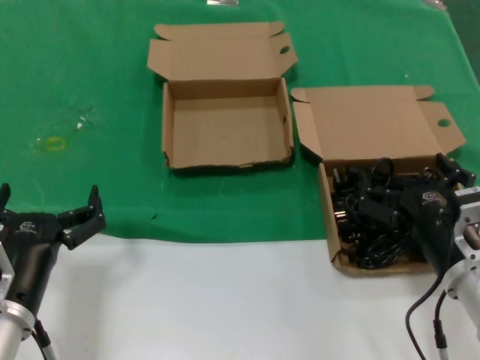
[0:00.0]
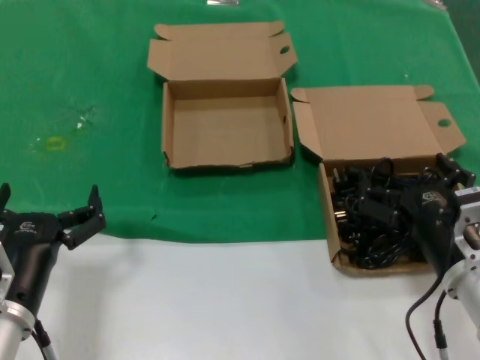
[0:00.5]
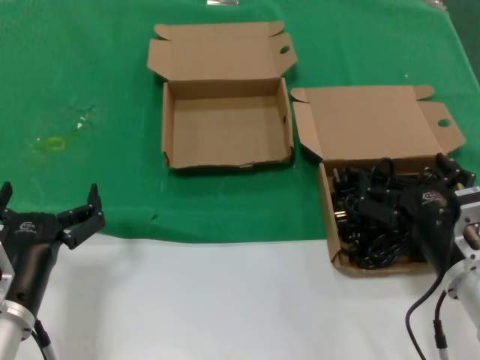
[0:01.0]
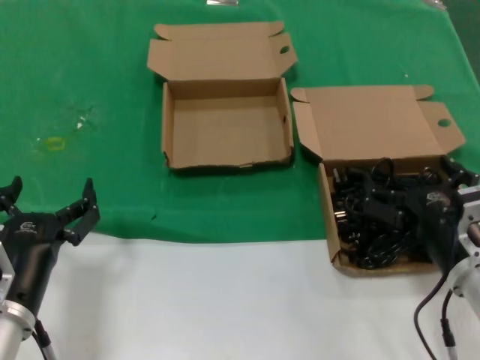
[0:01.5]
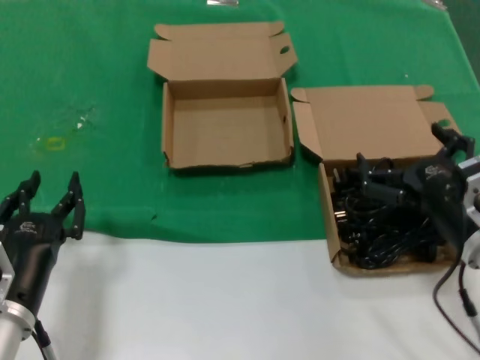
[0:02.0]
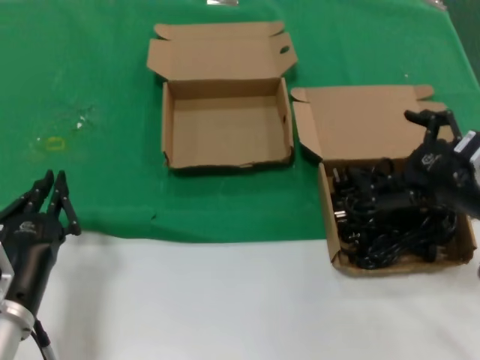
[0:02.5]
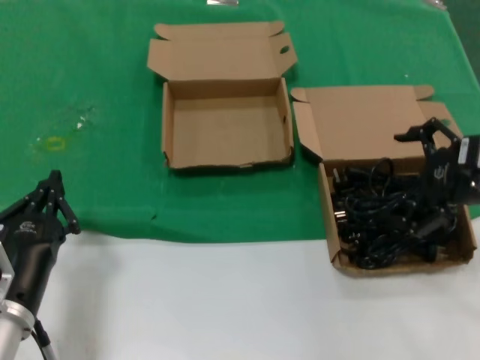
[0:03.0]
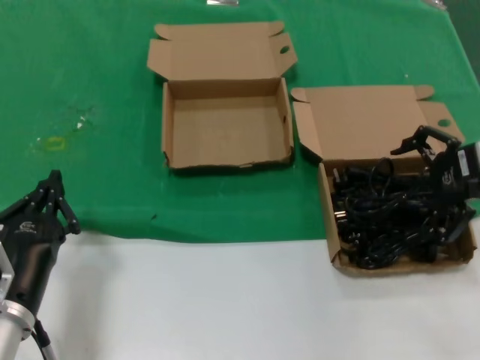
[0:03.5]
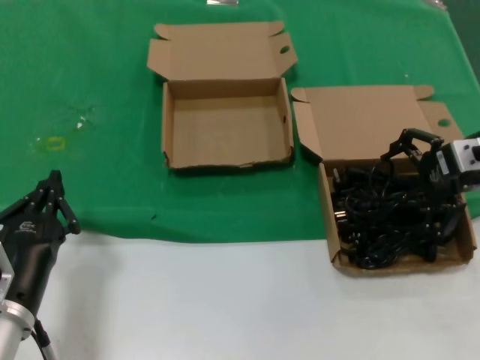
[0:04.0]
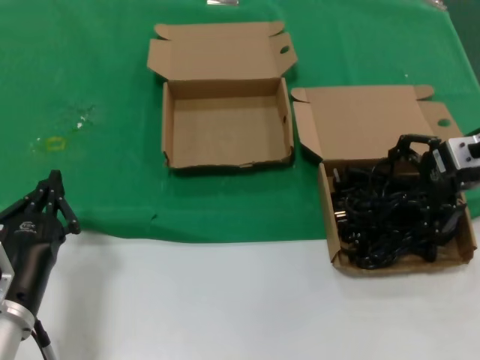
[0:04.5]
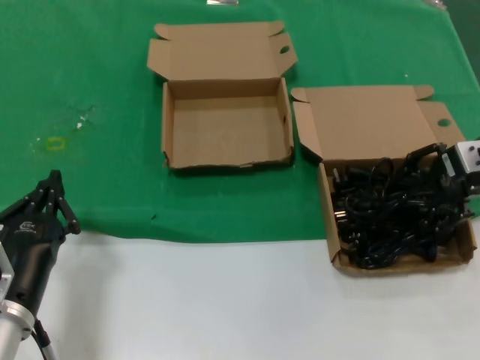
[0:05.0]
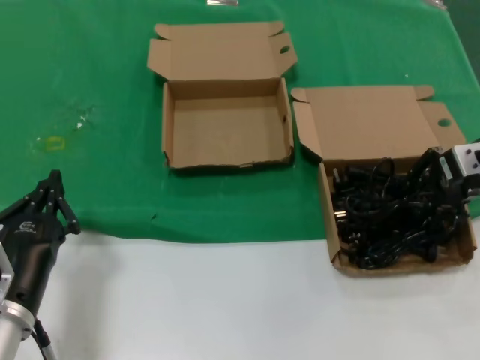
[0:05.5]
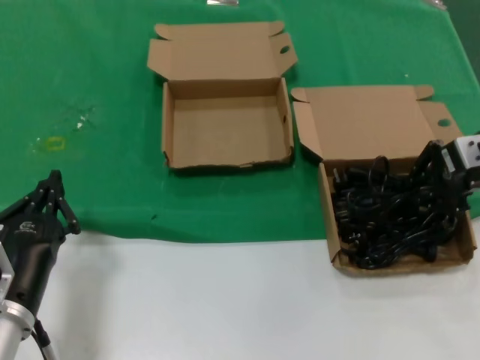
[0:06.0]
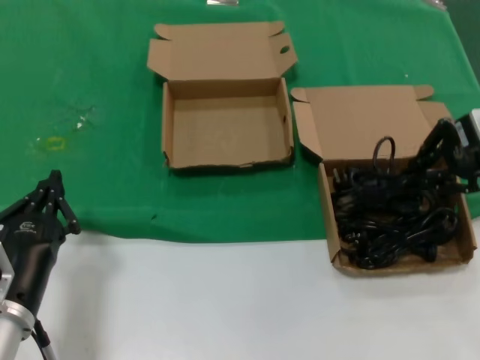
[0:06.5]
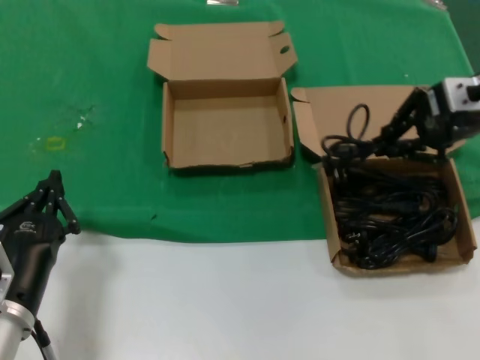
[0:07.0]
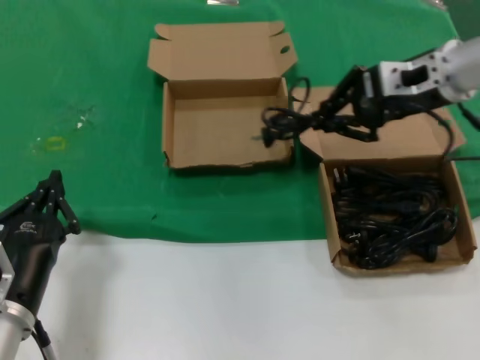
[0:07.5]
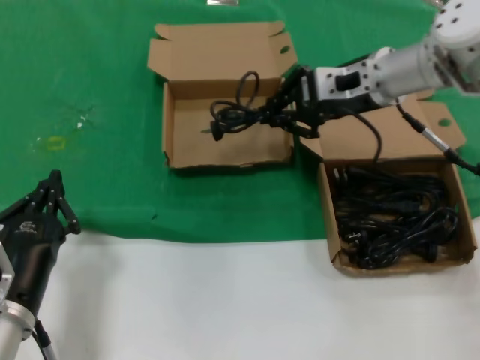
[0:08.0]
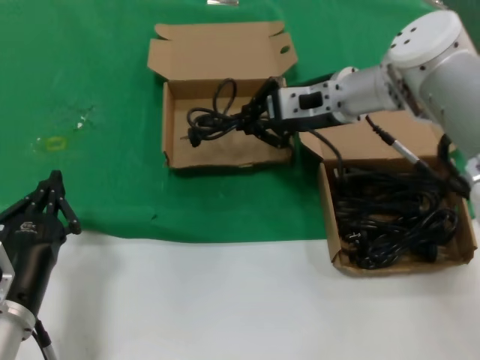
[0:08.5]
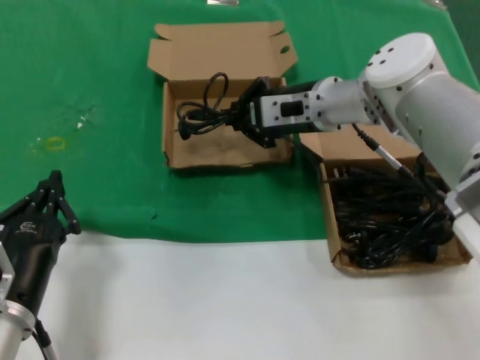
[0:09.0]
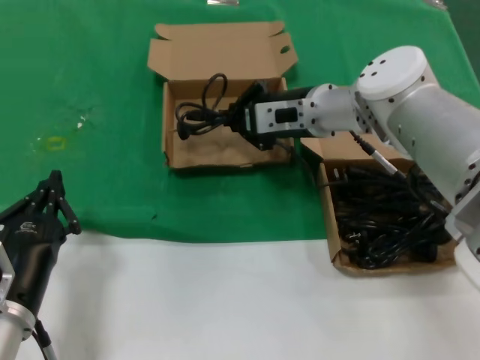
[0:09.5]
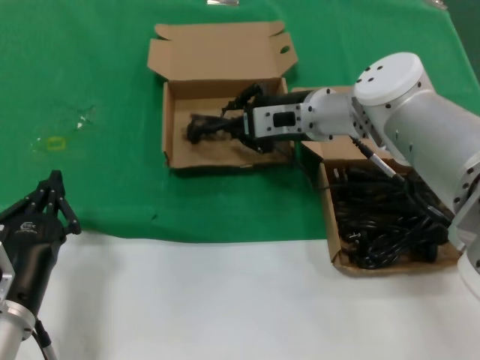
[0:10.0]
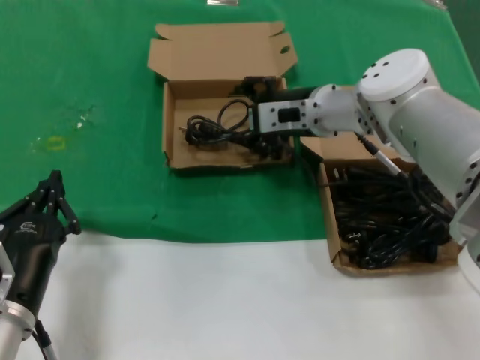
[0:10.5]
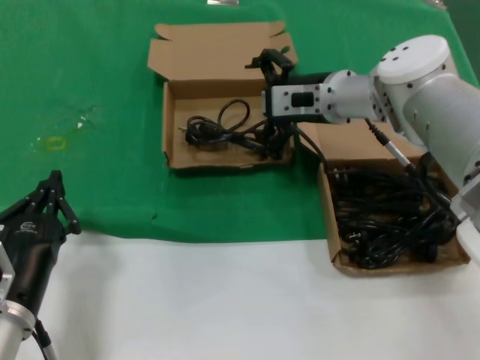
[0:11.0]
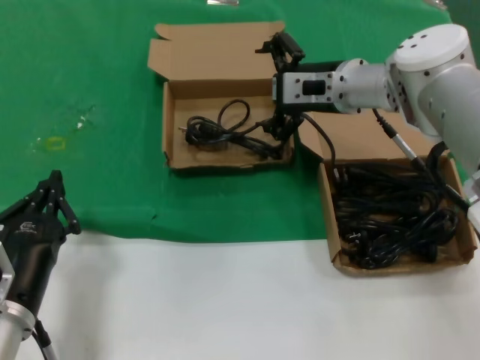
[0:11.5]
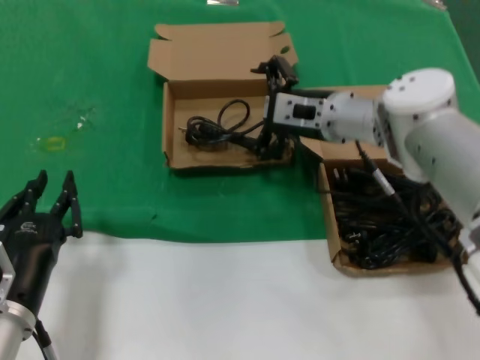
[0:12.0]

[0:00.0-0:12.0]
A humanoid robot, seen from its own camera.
Task of the whole recording: take the parts from the box containing them and put them into an empty box.
Step, 0:00.0 to 0:05.5: Grasp the data cable.
Step, 0:06.0 to 0:09.5: Place the data cable in the another box.
0:00.0 to 0:02.0: The hands make only small movements.
0:02.0 to 0:04.0: The right hand moves forward, upward and to the right, about 20 cm.
0:04.0 to 0:06.0: The hands make only small movements.
0:06.0 to 0:08.0: The right hand travels to the left and forward by about 15 cm.
0:08.0 to 0:10.0: The right hand is displaced to the left and downward by some 10 cm.
0:10.0 to 0:12.0: There are only small adjustments of the hands.

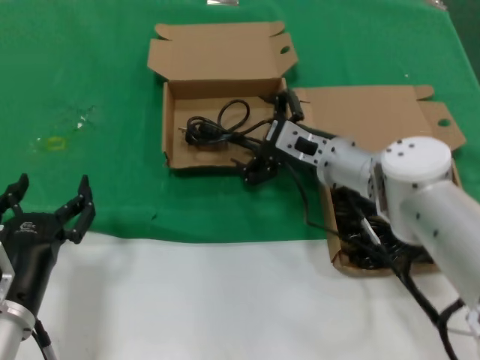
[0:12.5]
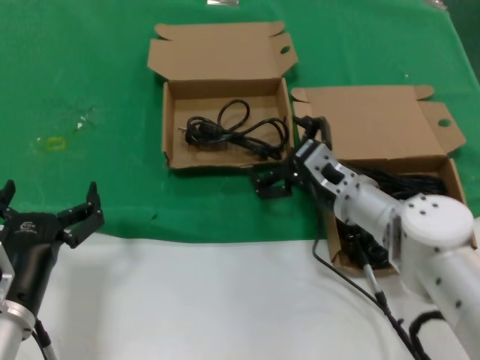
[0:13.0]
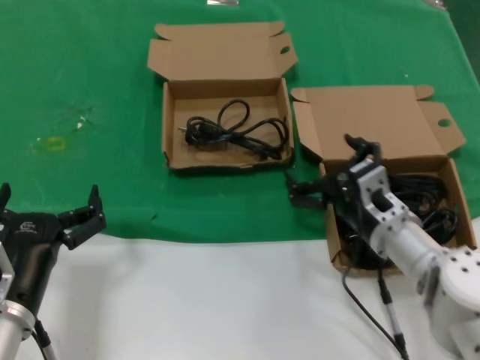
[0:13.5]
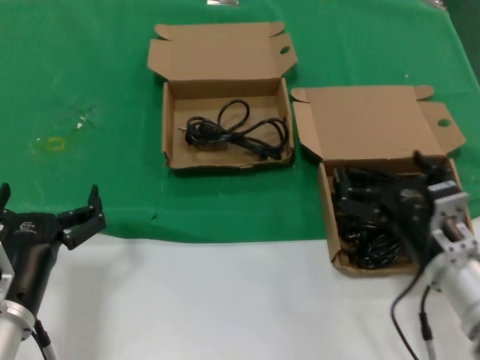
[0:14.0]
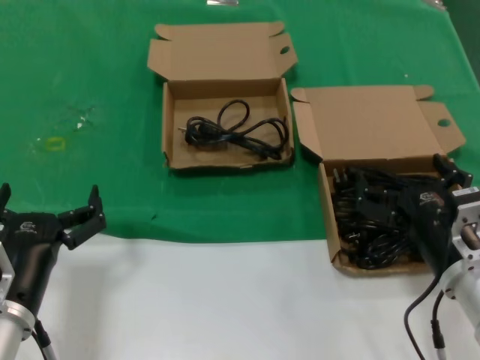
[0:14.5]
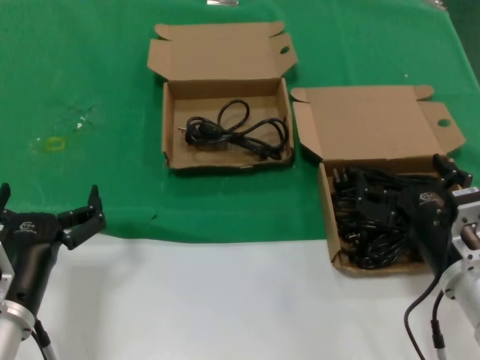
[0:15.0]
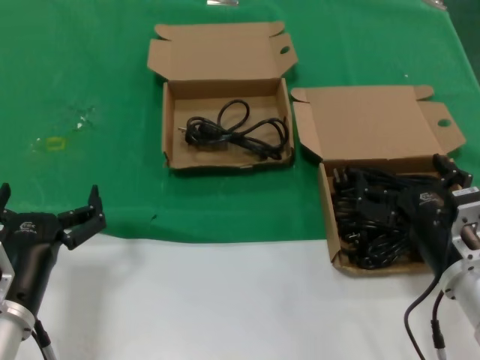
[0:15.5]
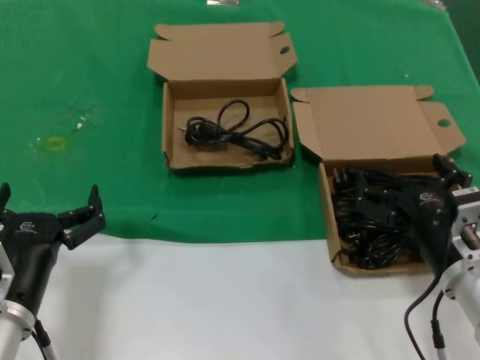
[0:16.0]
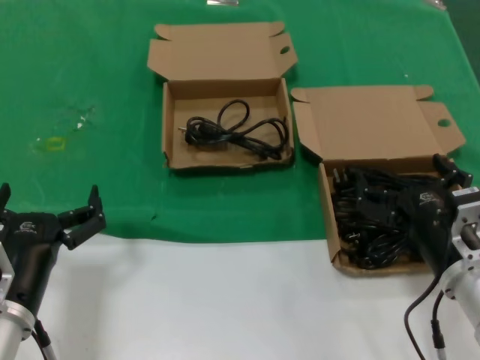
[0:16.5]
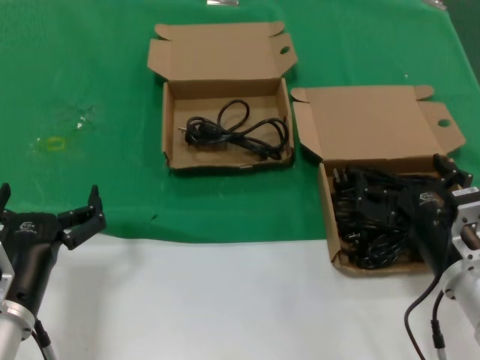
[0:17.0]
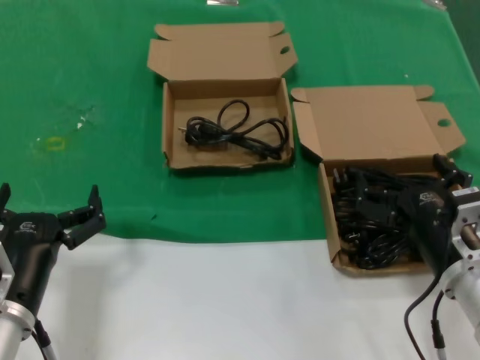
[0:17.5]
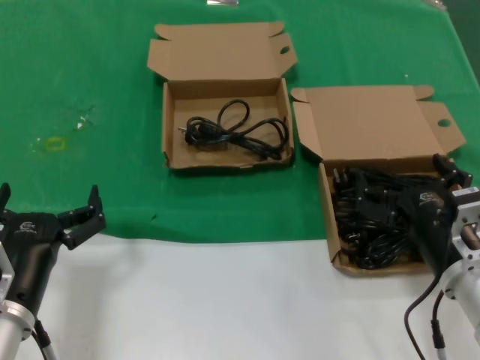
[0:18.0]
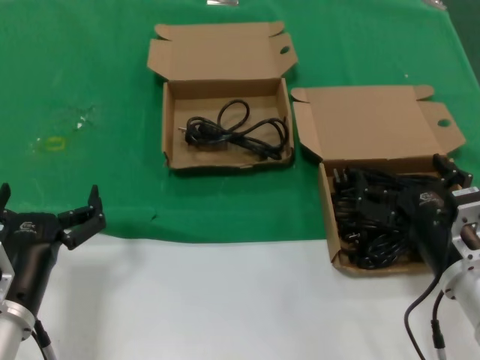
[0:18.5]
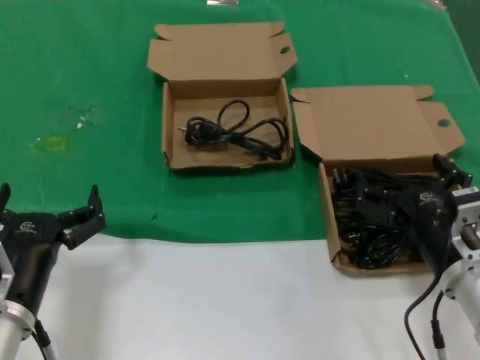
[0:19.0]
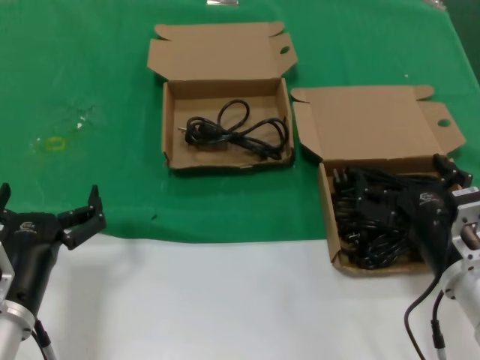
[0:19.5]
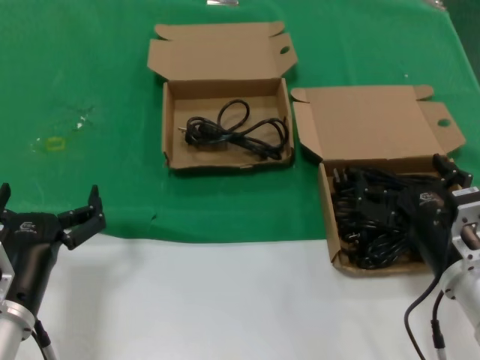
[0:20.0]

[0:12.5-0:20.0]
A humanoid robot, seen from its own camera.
Task of the whole recording: take the parts from the box containing them and put them into an empty box.
0:12.5 to 0:14.5: The right hand shifts roughly 25 cm backward and to the right.
0:14.5 to 0:20.0: Both hands stay put.
